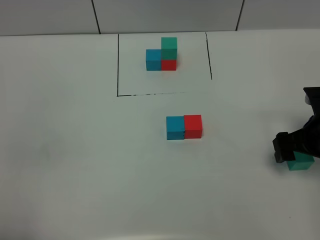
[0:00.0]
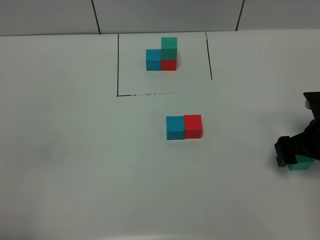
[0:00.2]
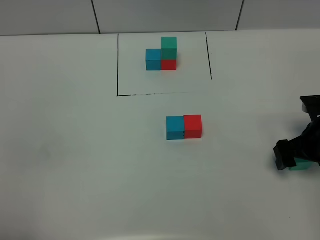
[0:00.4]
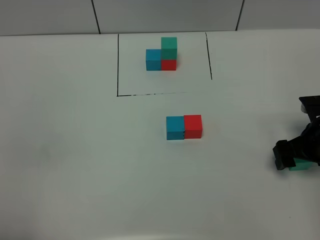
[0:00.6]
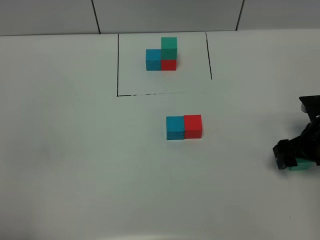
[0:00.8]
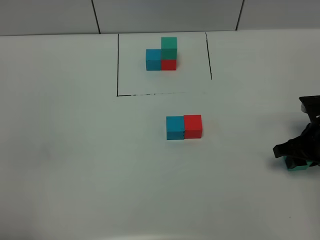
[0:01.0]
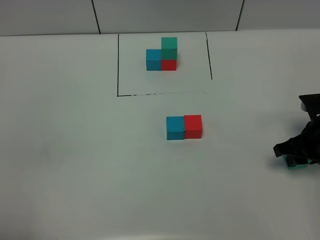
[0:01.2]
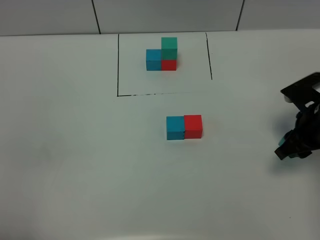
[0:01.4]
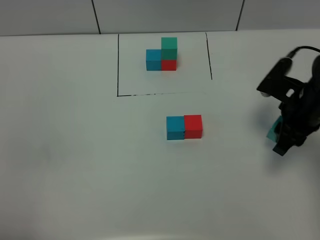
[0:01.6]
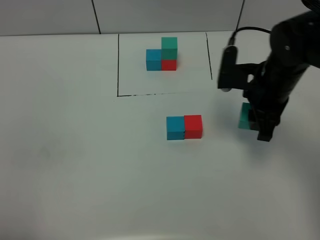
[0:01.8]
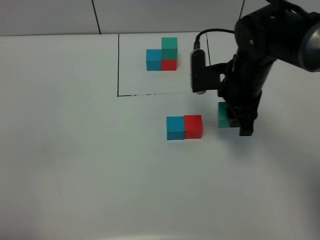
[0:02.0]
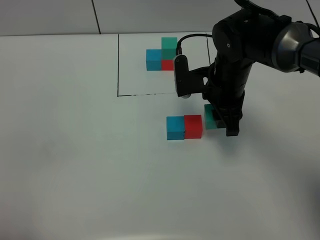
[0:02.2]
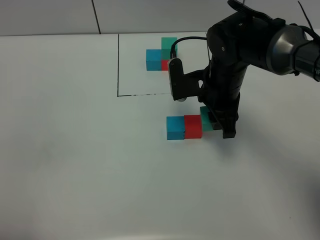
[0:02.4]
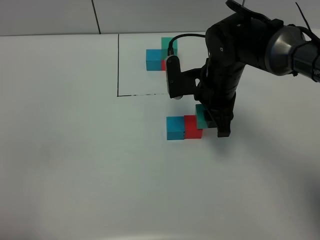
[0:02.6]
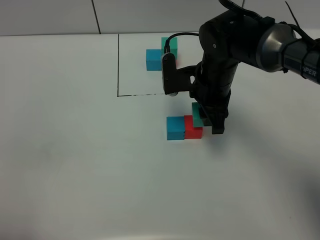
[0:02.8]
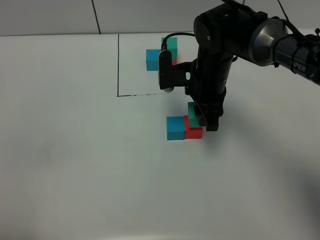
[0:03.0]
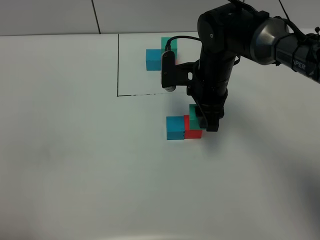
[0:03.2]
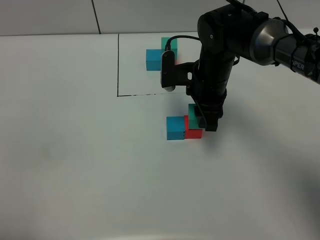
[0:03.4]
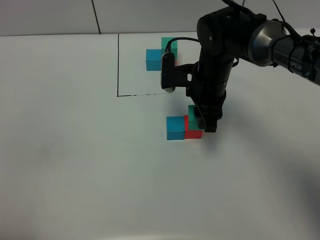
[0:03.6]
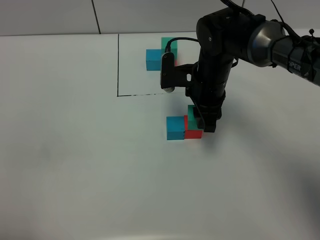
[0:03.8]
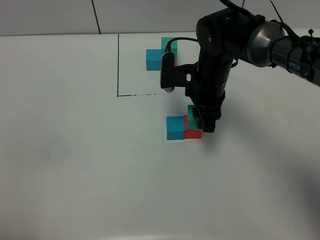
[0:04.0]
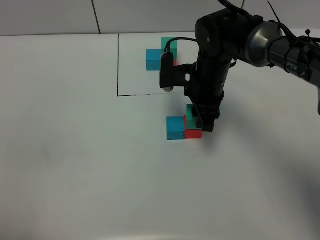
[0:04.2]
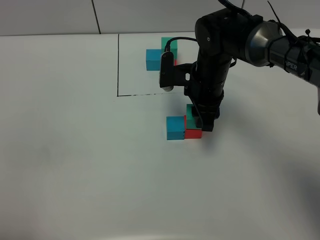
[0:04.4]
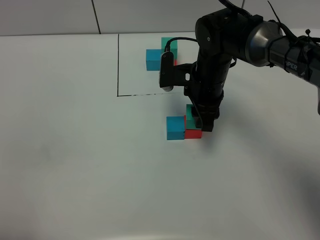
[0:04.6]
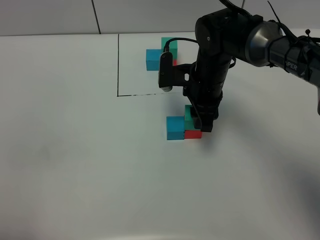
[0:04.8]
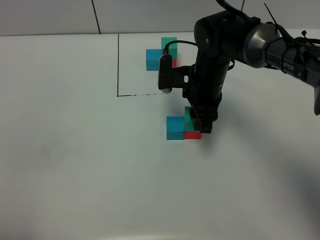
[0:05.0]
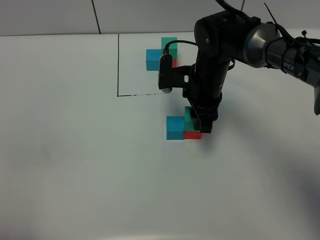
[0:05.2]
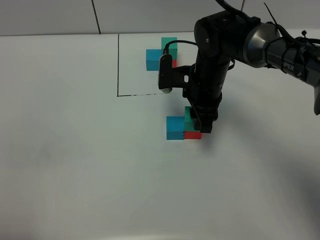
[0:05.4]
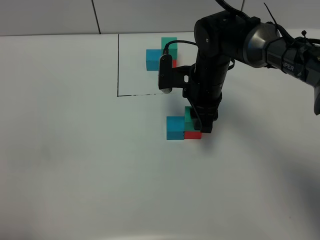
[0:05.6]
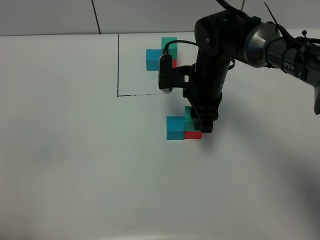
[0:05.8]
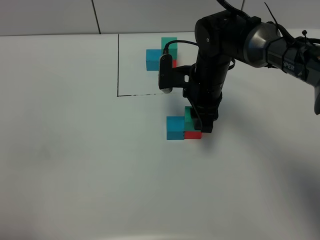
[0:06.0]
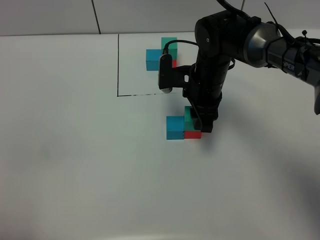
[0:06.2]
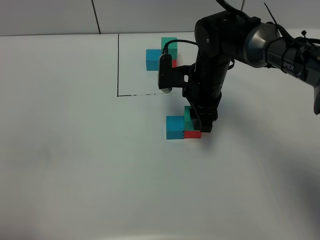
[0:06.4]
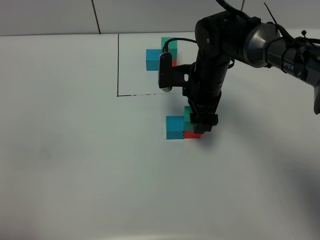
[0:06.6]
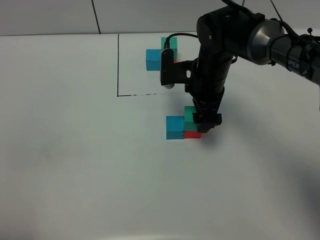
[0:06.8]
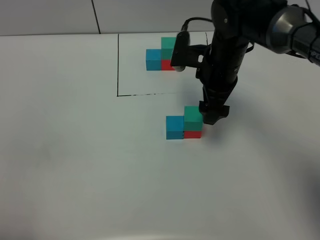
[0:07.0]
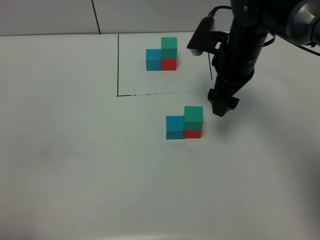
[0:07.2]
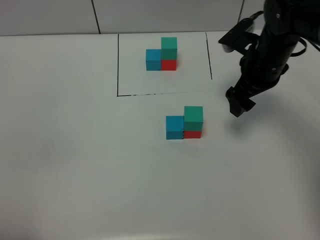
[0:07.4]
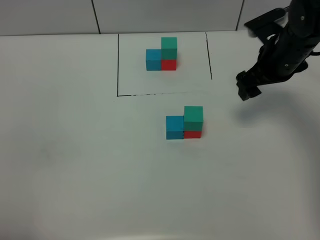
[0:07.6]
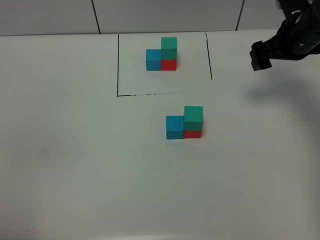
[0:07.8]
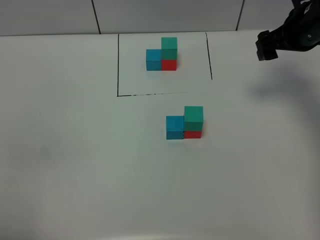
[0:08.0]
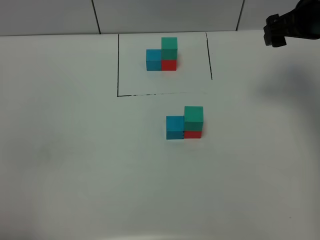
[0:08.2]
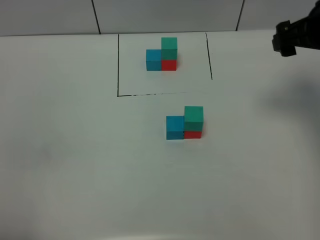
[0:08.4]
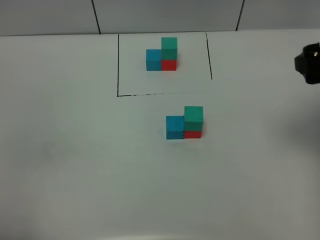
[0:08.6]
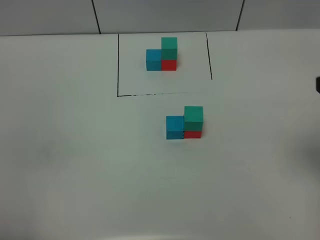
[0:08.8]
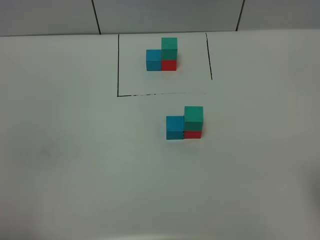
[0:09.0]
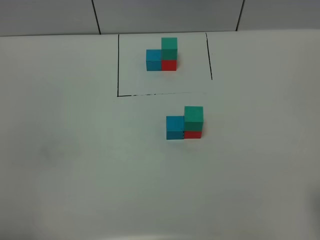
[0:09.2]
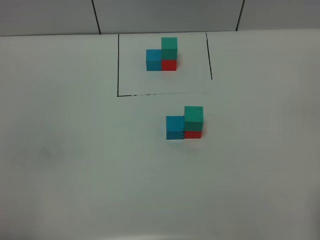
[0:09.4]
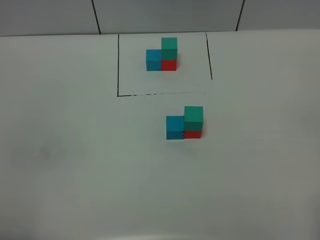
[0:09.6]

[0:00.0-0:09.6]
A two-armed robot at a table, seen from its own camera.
Task of the whole recording: According to the building block template in front, assemble the scattered blocks together.
Step, 0:00.0 to 0:06.8: Put the green build block on the red build block.
0:00.0 to 0:01.6: The right gripper moves approximately 5 cm, and closes up.
0:01.6 to 0:03.2: The right gripper heads to the left and forward, covering approximately 15 cm.
0:03.2 to 0:04.8: The two grippers keep their place.
0:04.8 to 0:06.4: The two grippers keep their place.
0:06.4 to 0:08.0: The right gripper travels to the right and upward by roughly 20 cm, and opens its fingers.
0:08.0 to 0:09.6: The right gripper shifts about 40 cm backward.

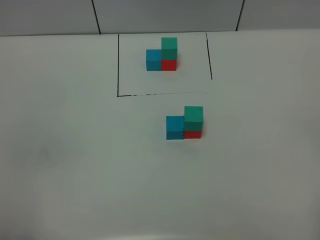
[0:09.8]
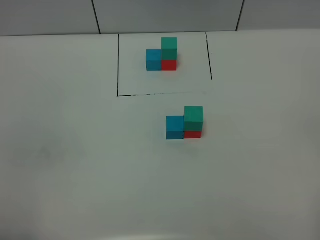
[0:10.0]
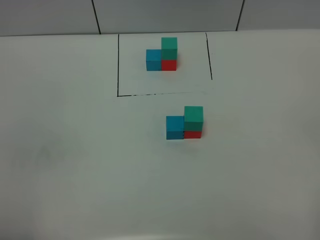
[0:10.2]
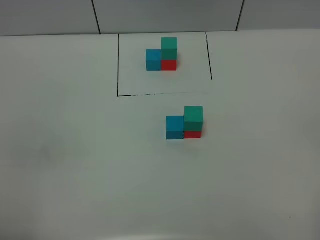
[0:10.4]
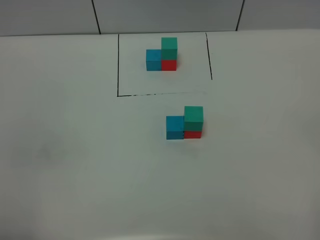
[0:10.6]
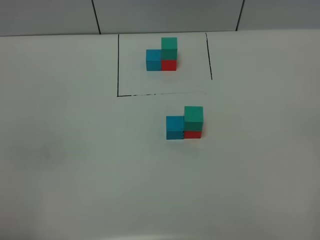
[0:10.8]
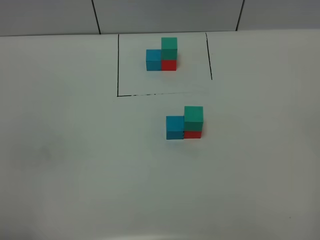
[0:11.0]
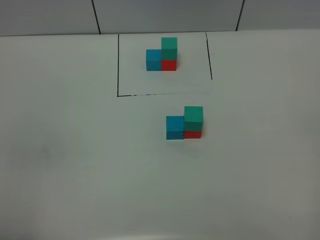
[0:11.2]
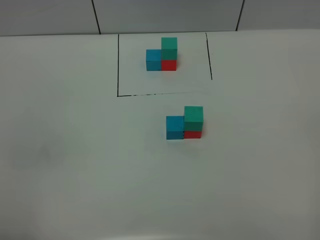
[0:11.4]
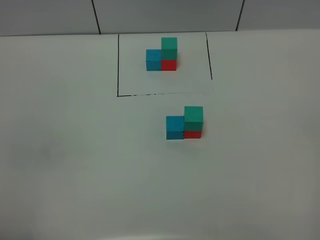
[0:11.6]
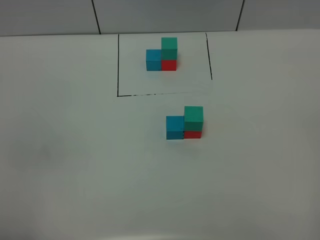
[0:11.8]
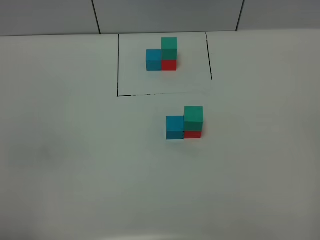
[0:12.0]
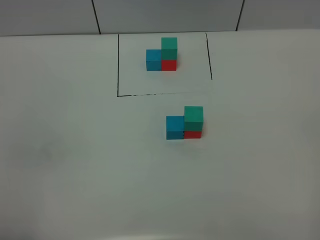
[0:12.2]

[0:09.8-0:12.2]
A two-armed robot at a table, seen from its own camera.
Task of the whole recording: According to the building block template in front, assemble the scattered blocks together.
0:11.0 to 0:12.2: The two grippers keep their place.
